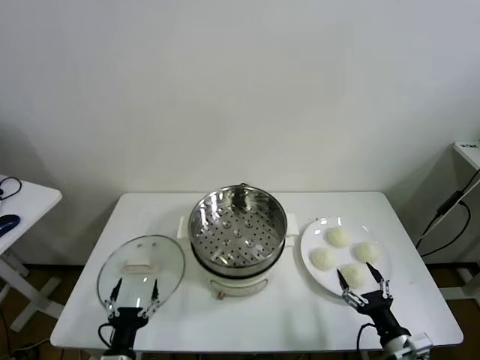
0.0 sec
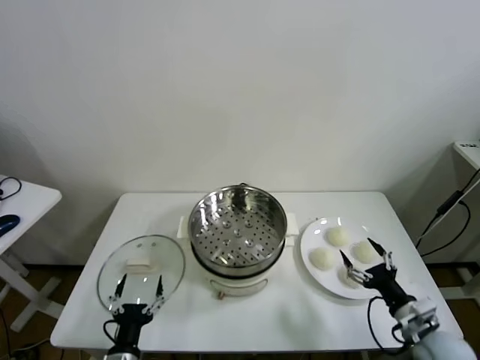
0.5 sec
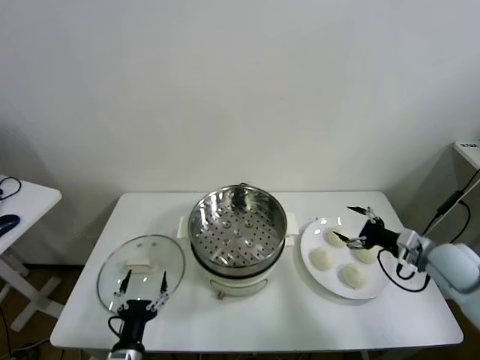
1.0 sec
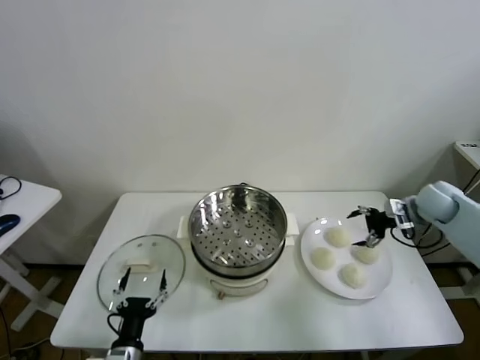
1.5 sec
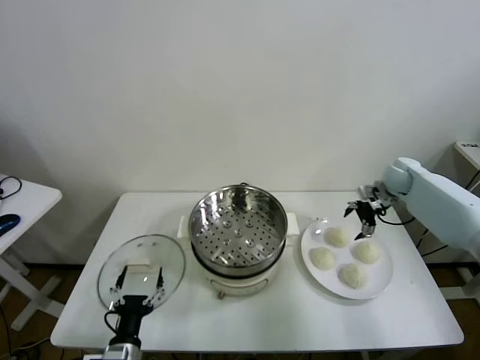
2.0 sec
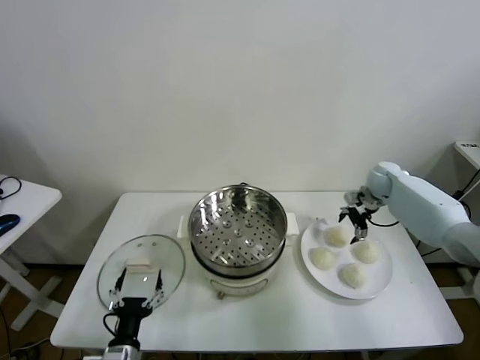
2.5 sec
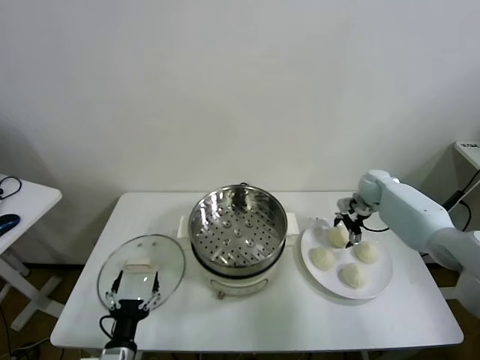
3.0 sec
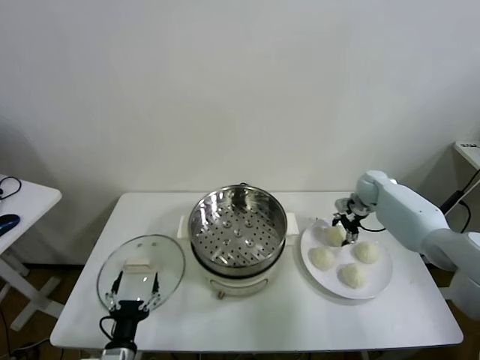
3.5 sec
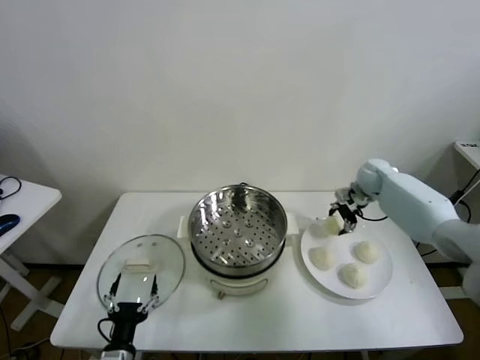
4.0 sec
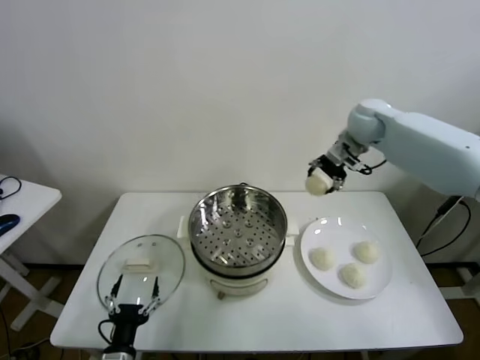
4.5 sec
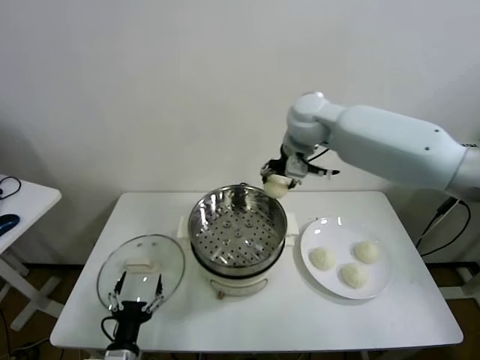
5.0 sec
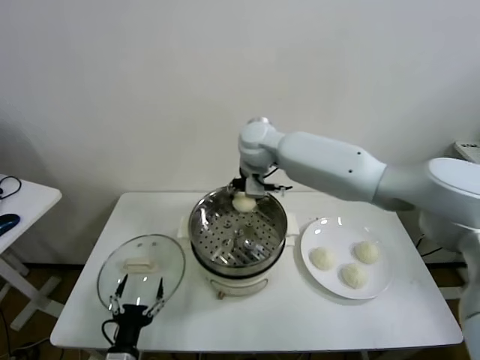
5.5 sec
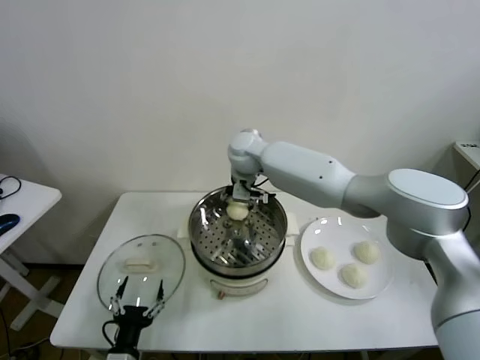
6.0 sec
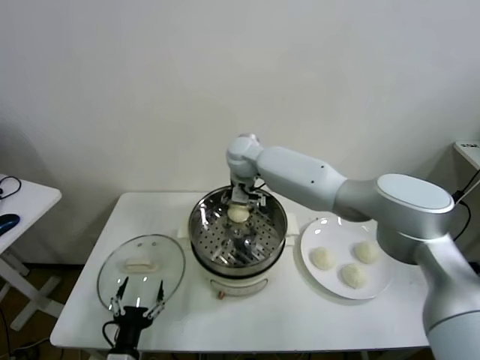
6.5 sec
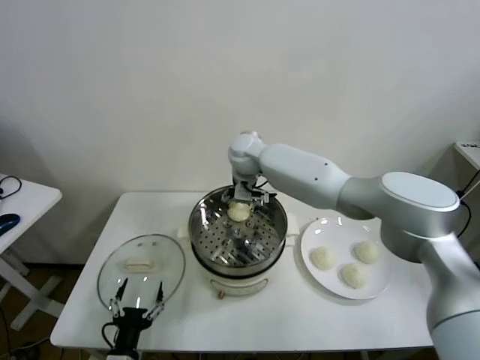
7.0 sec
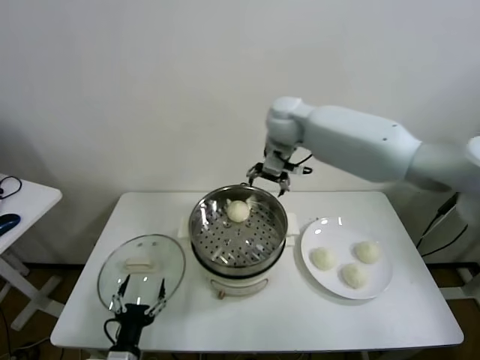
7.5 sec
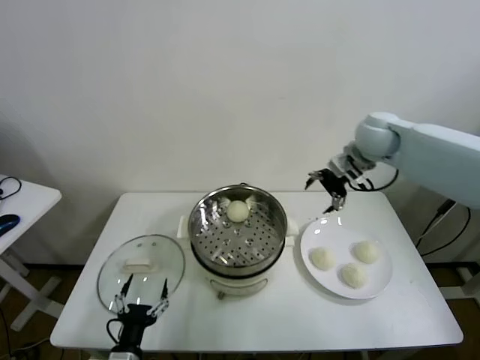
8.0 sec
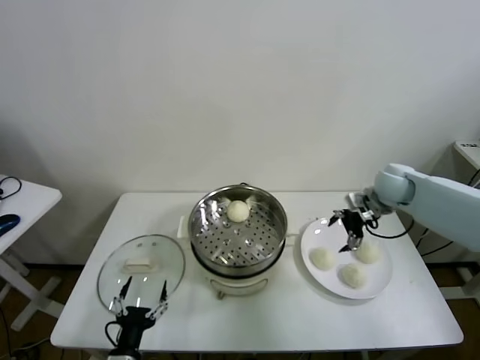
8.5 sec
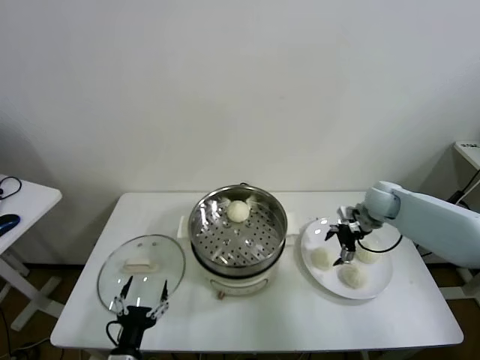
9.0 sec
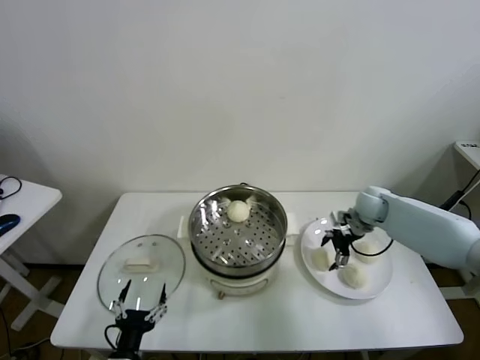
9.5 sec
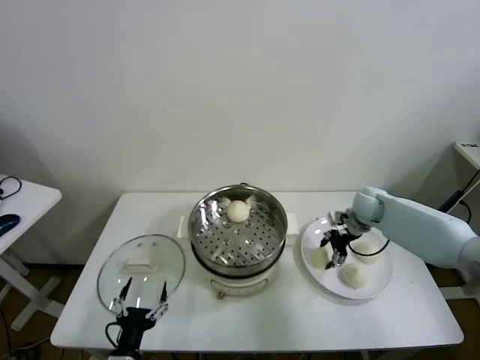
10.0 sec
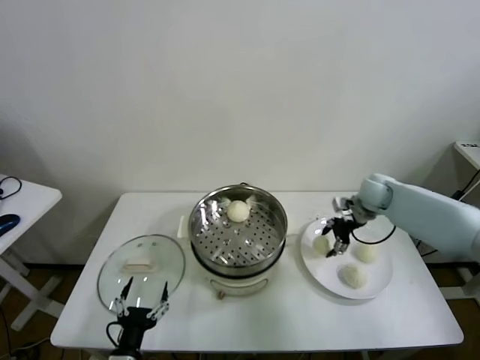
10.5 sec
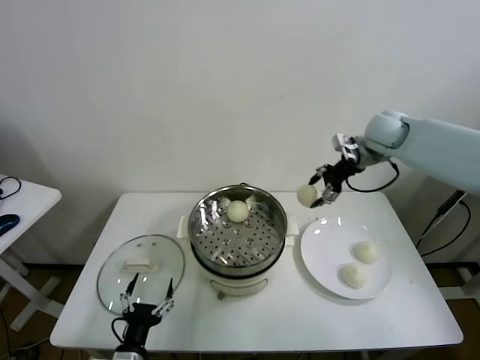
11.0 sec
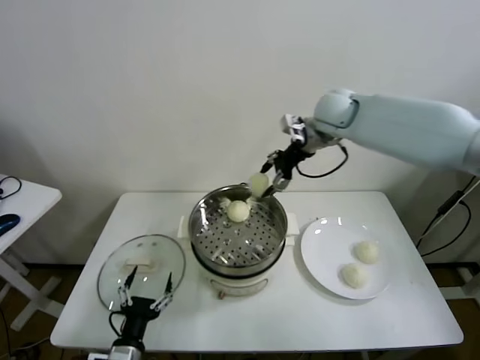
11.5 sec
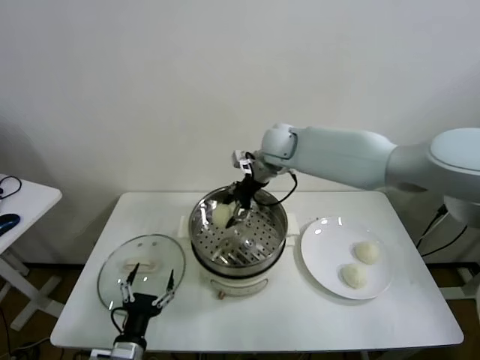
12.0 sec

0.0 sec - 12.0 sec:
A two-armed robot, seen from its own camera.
Task of the whole recording: take steamed baozi put them in steamer.
Step, 0.0 sec - 3.0 sec: Grasp the baozi in the plate with right gripper.
Step, 3.5 sec - 6.5 sec: Place the baozi on the steamer with right gripper.
Step, 7.0 sec - 9.5 sec: Grasp the baozi in the plate with right gripper.
2.0 sec - 4.0 sec: The right gripper shifts some 5 cm to the left, reaches some 5 cm downward, then returns, and closes its fingers.
4.0 sec - 6.0 sec: The right gripper goes about 35 cm to the left.
6.0 sec - 8.0 sec: The right gripper travels to the right by some 30 cm, and opens.
8.0 sec - 10.0 sec: The right gripper goes some 20 cm downward, and closes.
10.0 sec - 12.0 sec: The right gripper is displaced to the left and upward by some 30 cm.

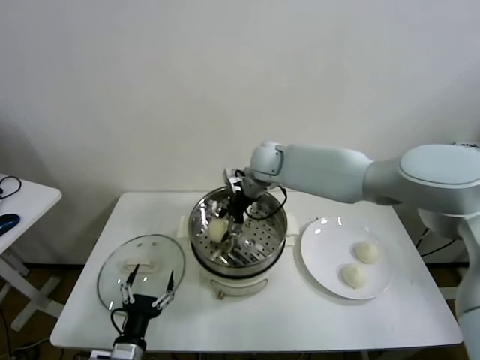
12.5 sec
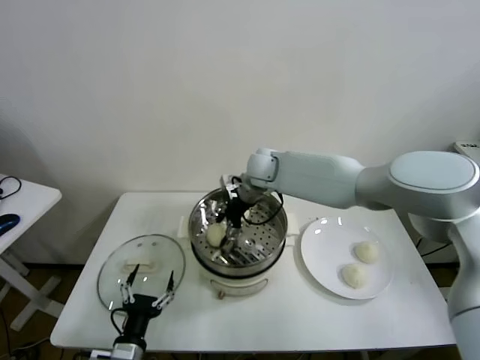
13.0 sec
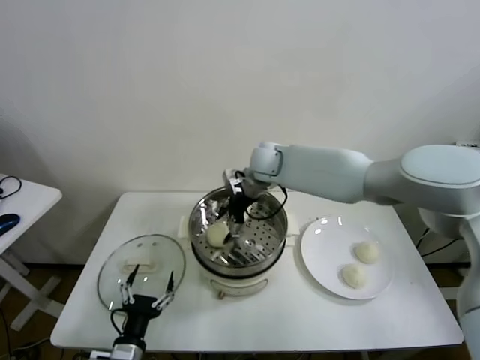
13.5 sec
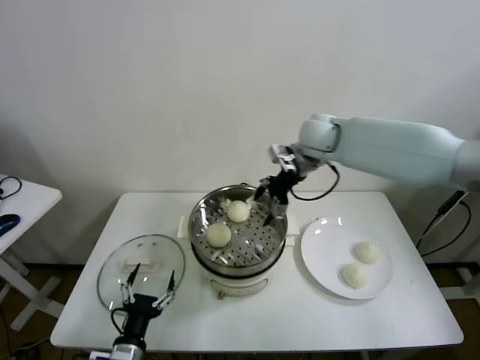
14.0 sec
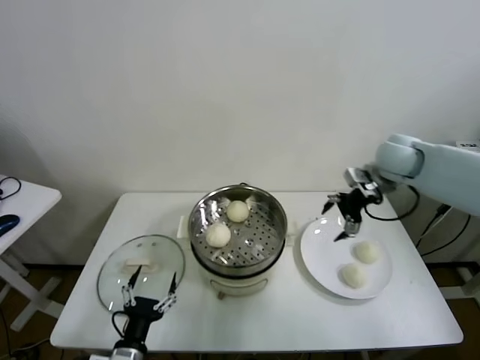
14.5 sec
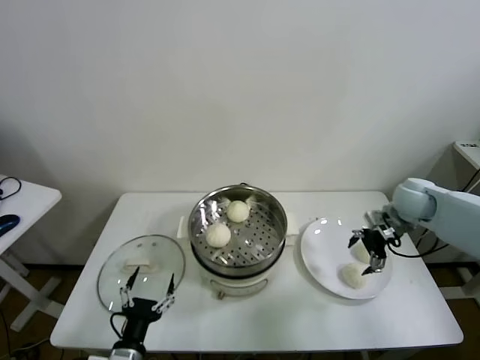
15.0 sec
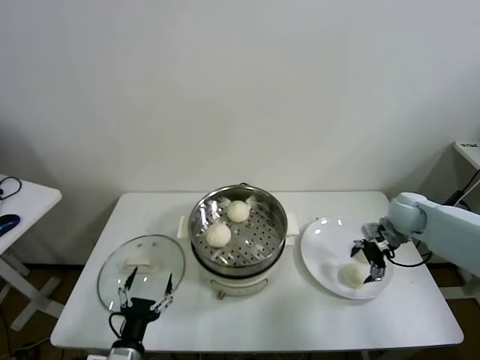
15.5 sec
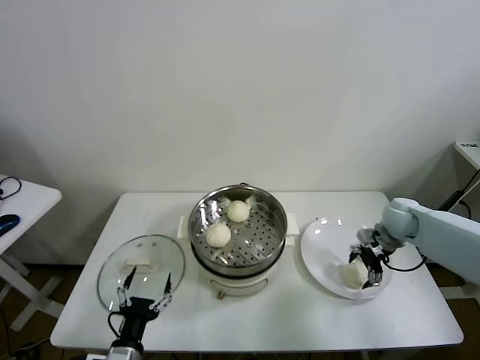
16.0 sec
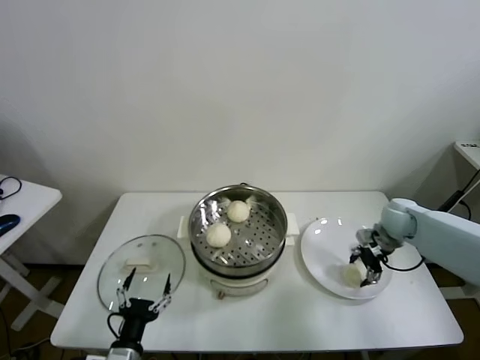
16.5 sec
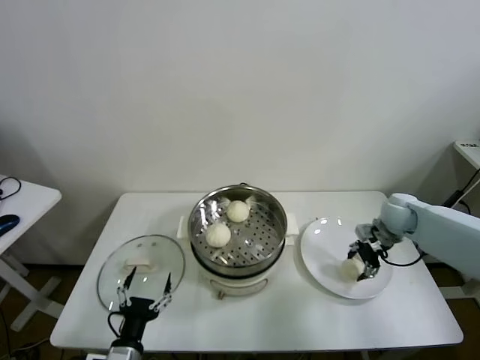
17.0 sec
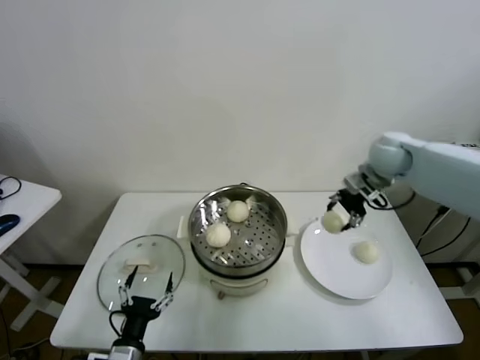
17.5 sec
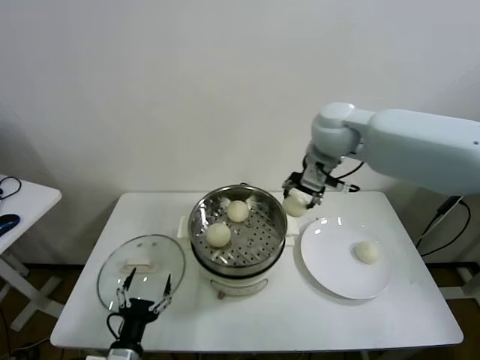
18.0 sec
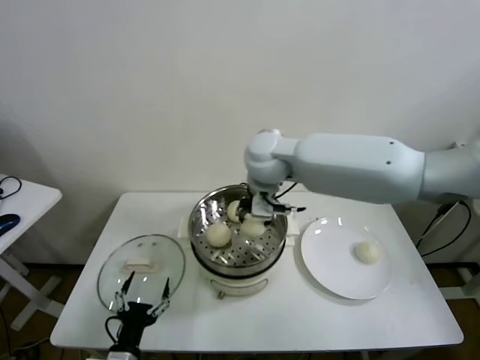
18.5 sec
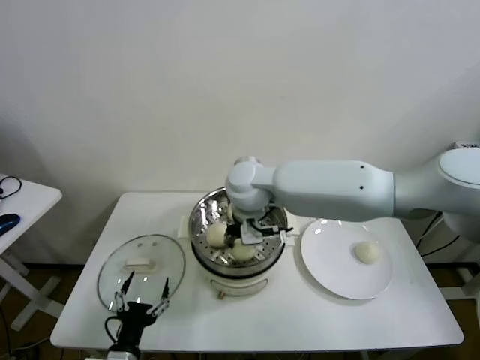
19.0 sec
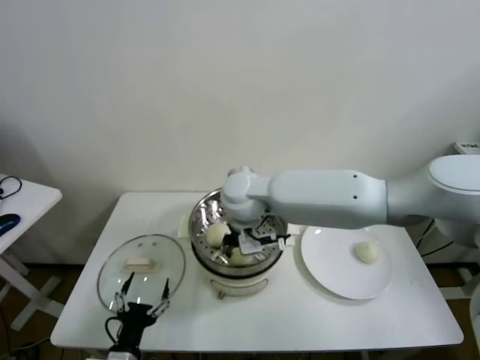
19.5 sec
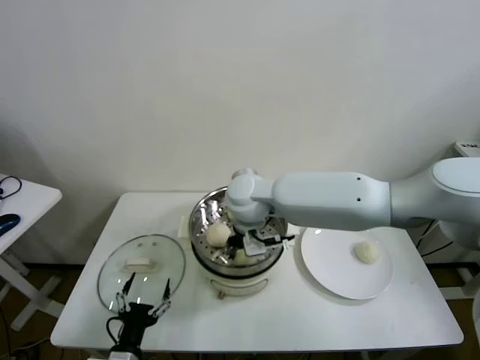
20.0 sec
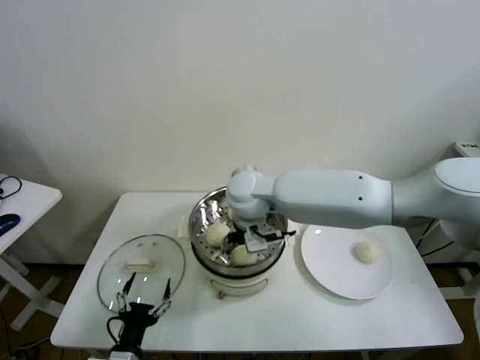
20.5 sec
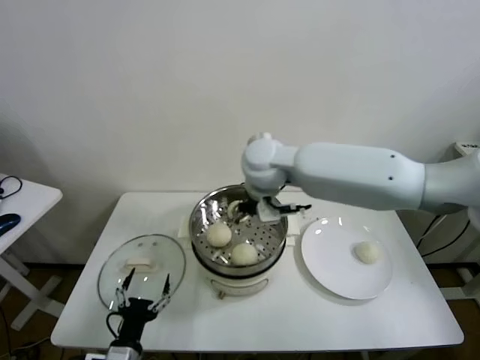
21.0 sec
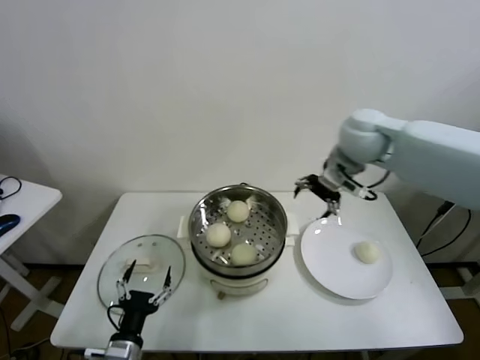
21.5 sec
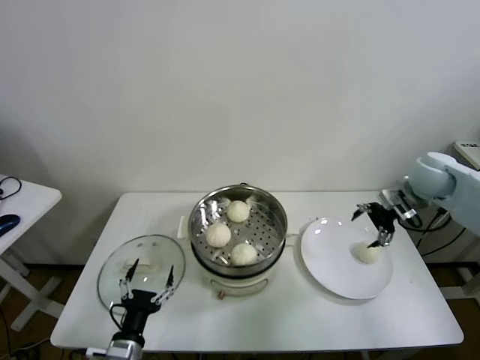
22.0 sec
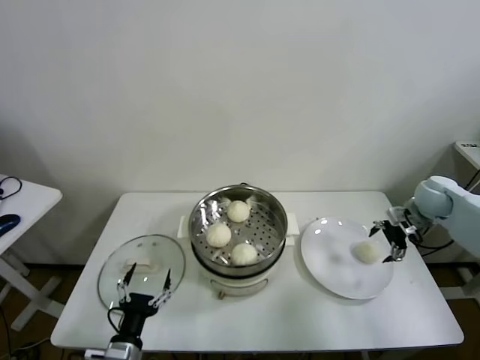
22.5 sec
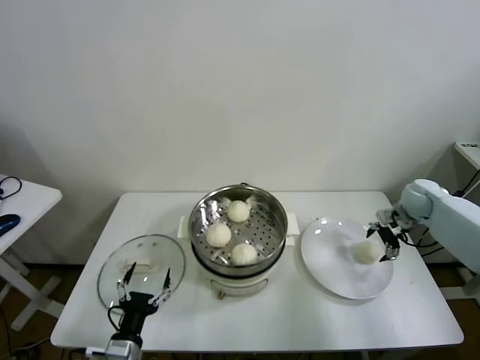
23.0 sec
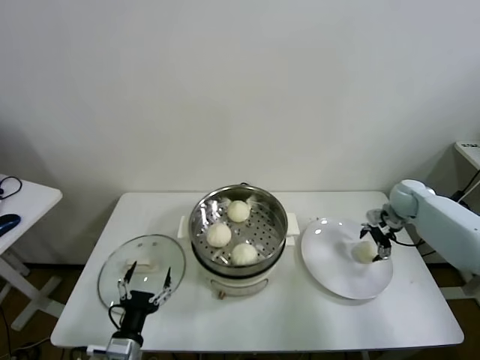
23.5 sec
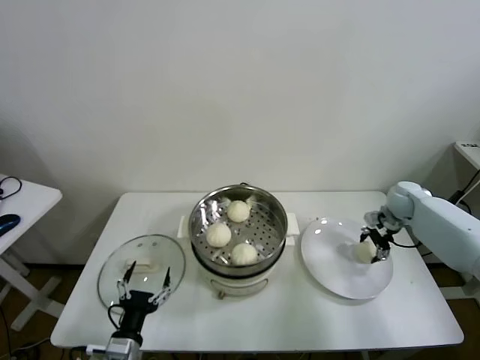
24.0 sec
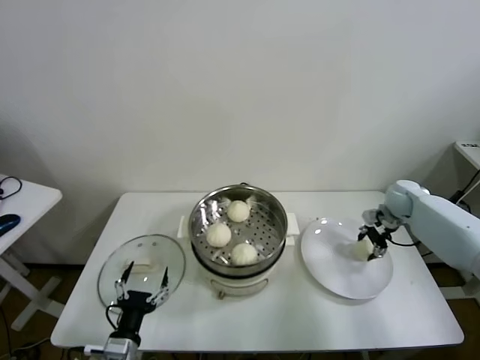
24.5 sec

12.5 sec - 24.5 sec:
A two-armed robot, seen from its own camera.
Task of the whole recording: take steamed baozi put them in steamer.
Step, 13.5 sec - 16.0 sec: Grasp the baozi in the plate with right gripper.
Step, 16.5 sec - 20.0 sec: Place the baozi on the steamer with right gripper.
Step, 20.5 sec - 23.5 sec: Grasp the baozi in the plate with right gripper.
12.5 sec - 14.5 sec: The right gripper goes about 30 cm to the right, and opens.
14.5 sec - 16.5 sec: The right gripper heads downward, covering about 15 cm, and closes its fingers.
16.5 sec - 18.5 sec: The right gripper travels to the left and upward by roughly 40 cm.
18.5 sec - 20.5 sec: The right gripper travels downward by about 5 cm, and opens up.
20.5 sec - 22.5 sec: The right gripper moves to the right, some 50 cm.
22.5 sec - 24.5 sec: The right gripper is displaced downward and forward by roughly 10 cm, and closes.

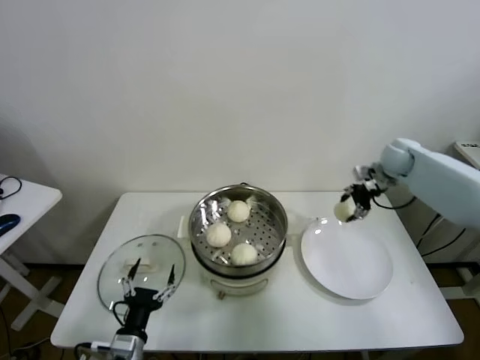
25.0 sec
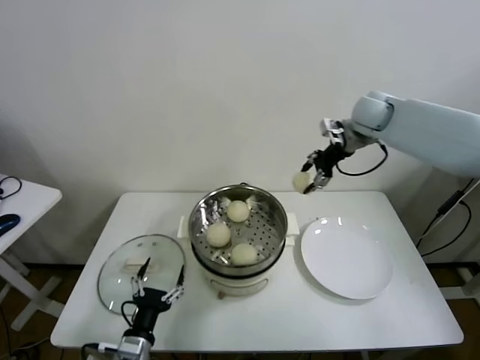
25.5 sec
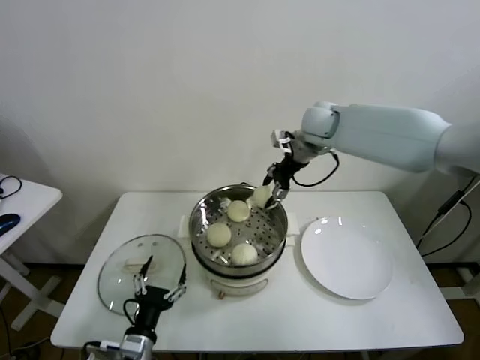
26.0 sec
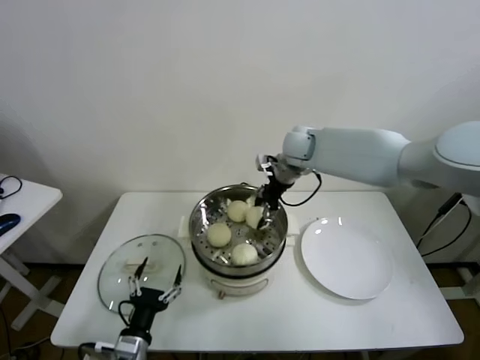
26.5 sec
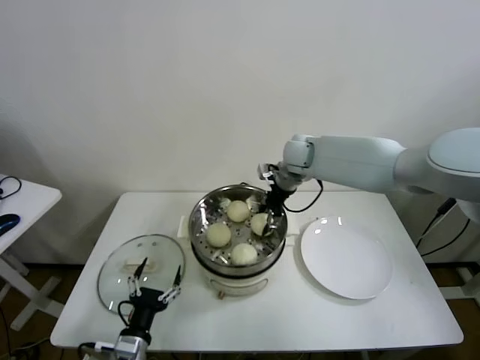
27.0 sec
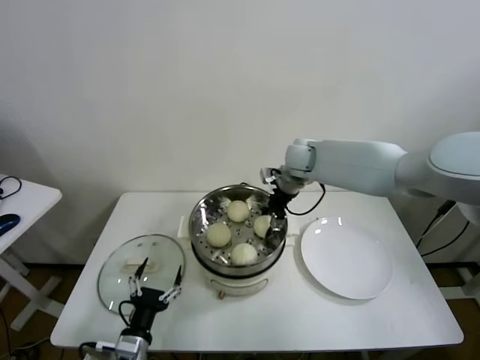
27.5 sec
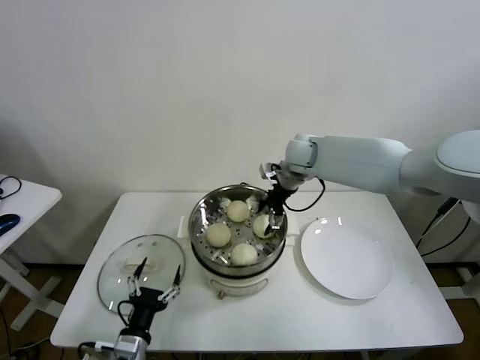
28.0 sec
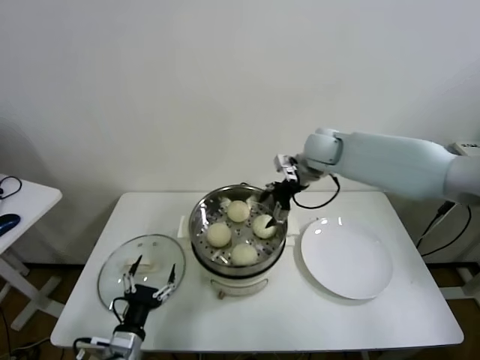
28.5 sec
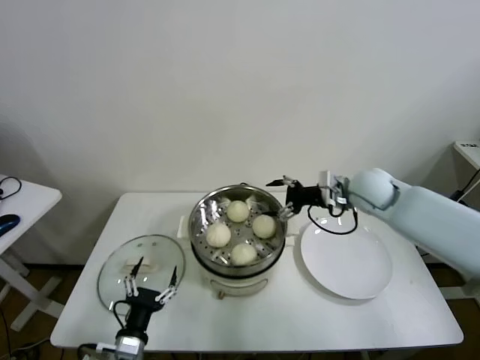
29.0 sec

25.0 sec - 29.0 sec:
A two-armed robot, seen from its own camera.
Task of the whole recording: take steamed baozi put them in steamer.
Step, 25.0 sec - 27.5 sec: Place the baozi on the steamer with right gripper.
25.0 sec - 27.0 sec: The right gripper moves to the left, approximately 25 cm.
27.0 sec - 29.0 sec: The right gripper moves to the right and backward, roughly 20 cm, and opens.
